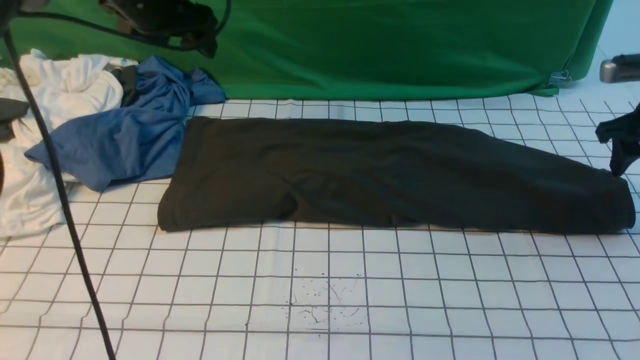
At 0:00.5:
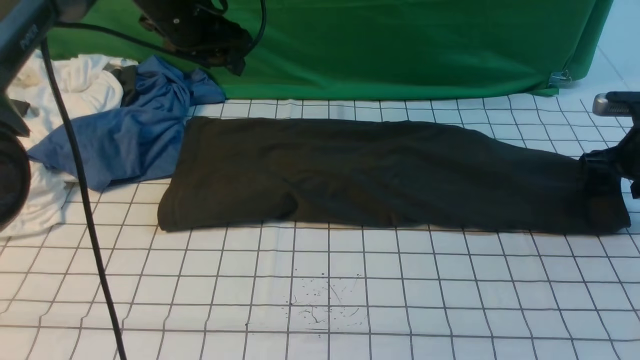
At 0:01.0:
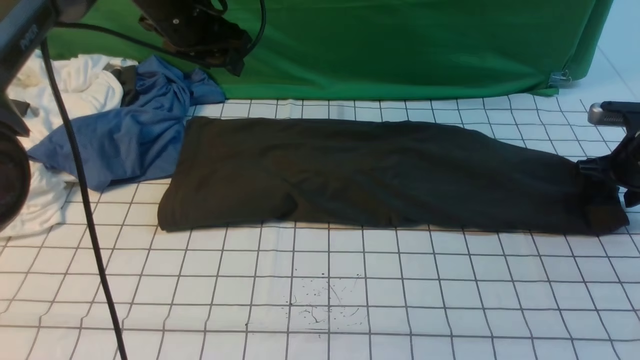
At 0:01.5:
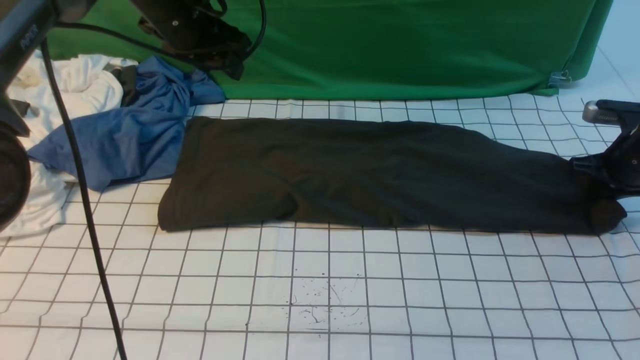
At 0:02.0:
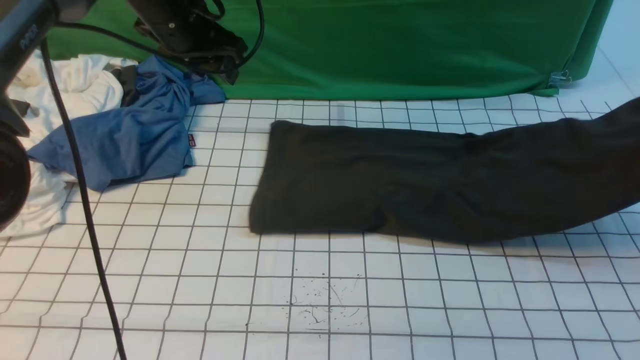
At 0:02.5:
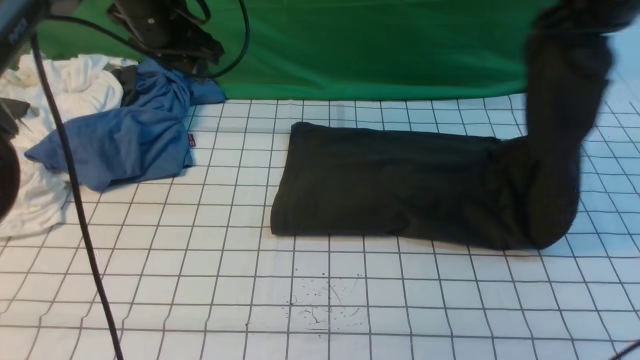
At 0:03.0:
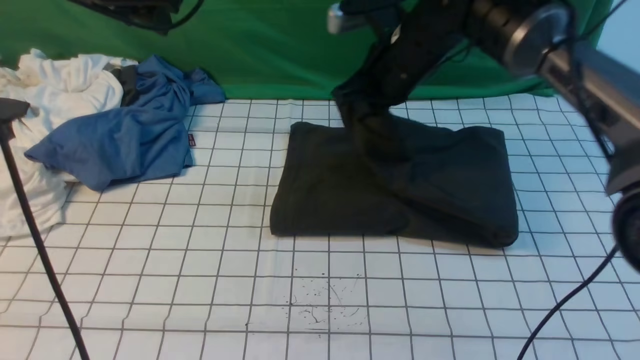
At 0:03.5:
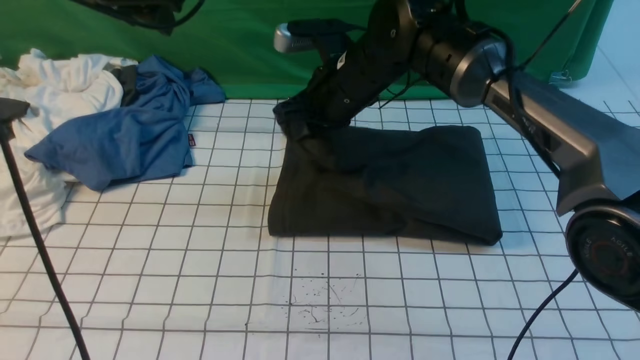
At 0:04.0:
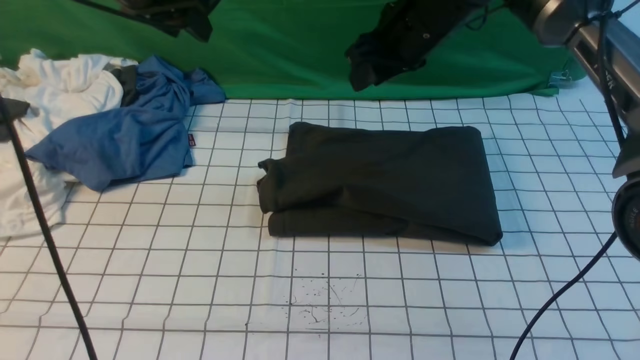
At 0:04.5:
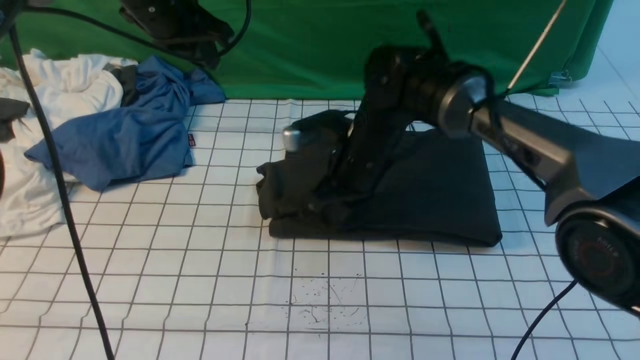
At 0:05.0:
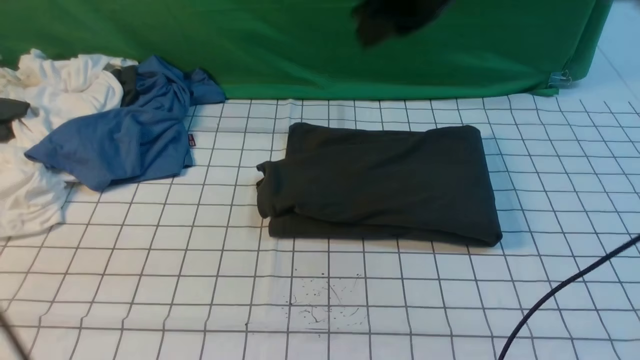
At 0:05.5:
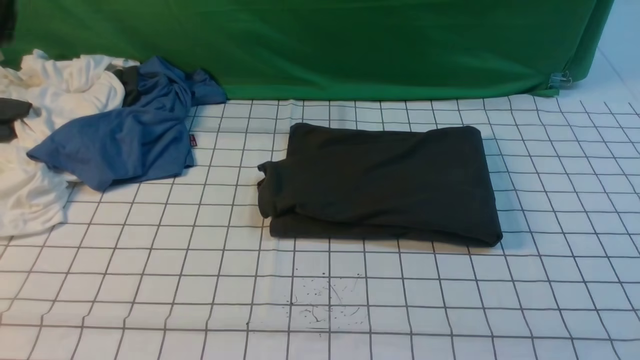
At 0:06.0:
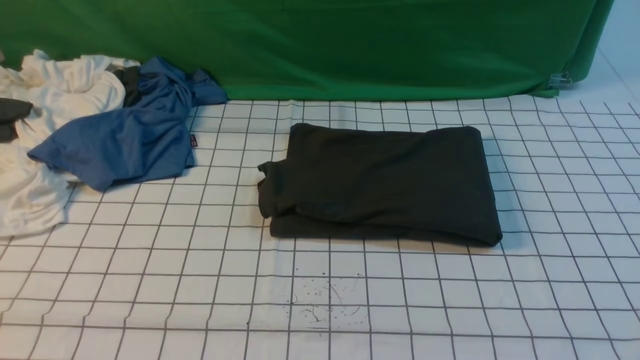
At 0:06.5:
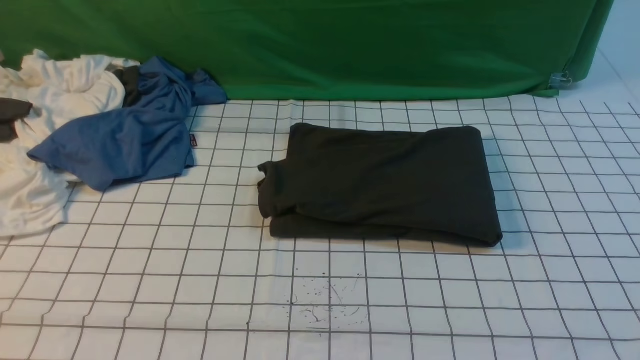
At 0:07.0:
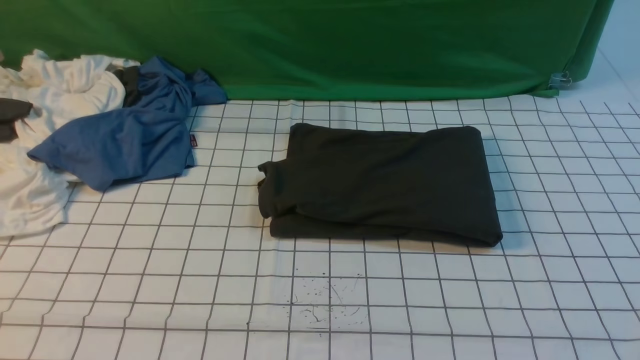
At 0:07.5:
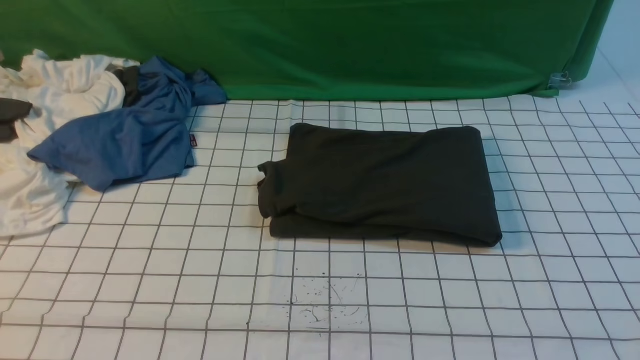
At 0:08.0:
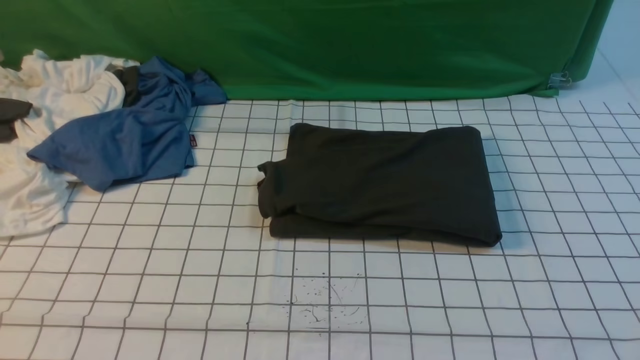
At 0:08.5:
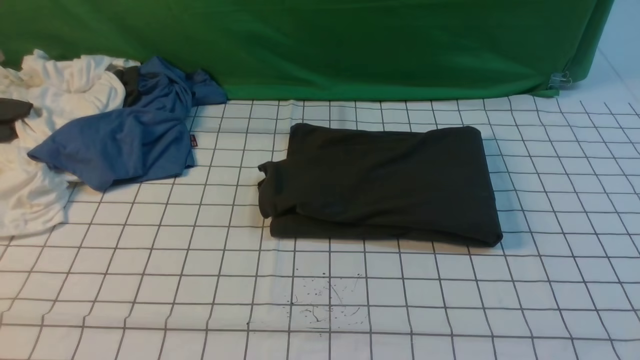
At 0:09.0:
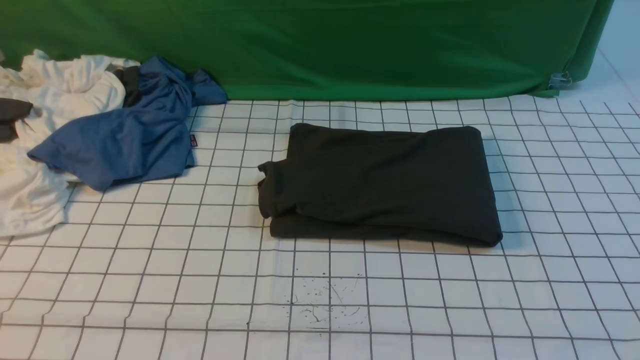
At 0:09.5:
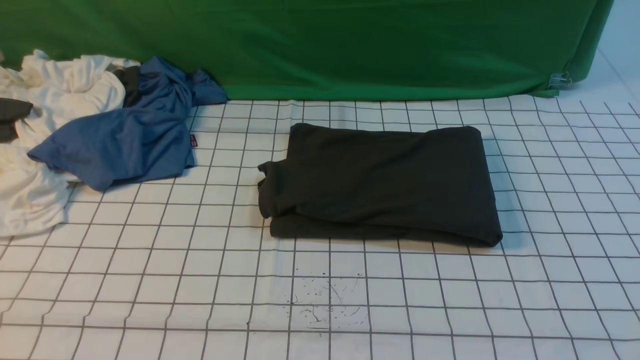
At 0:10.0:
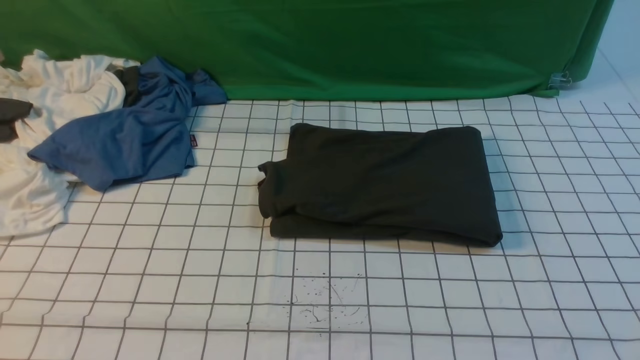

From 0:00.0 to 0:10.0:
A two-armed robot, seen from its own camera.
Step, from 0:00.0 to 0:01.5: use the right arm to clamp the right edge of the fabric.
Step, from 0:02.0 to 0:03.5: use the right arm to drag the right edge of the fabric to the left and folds it over the left edge.
From 0:00.0 to 0:02.0: The right gripper is displaced upward by roughly 10 cm, and closes.
From 0:02.0 to 0:04.0: The right gripper travels to the left by some 30 cm, and opens up.
From 0:04.0 to 0:06.0: The right gripper travels backward, to the right and upward by approximately 40 cm, and closes its fingers. The left gripper moves backward, approximately 40 cm, and closes.

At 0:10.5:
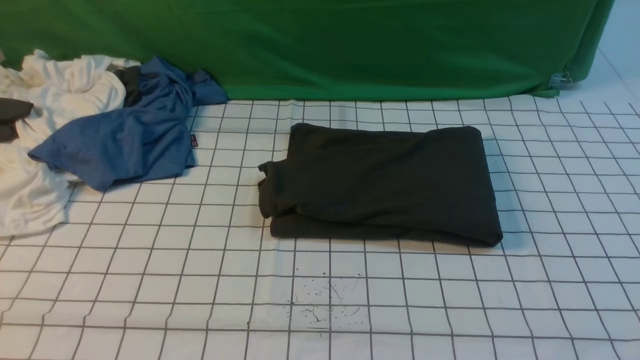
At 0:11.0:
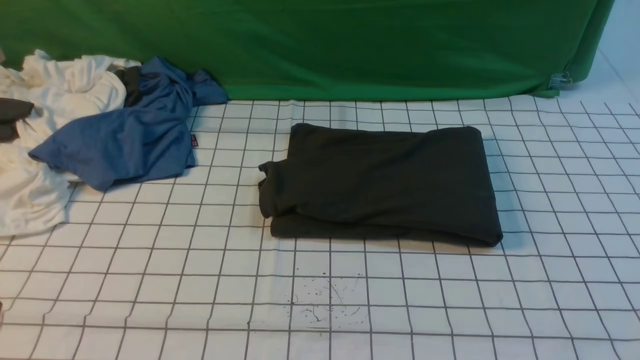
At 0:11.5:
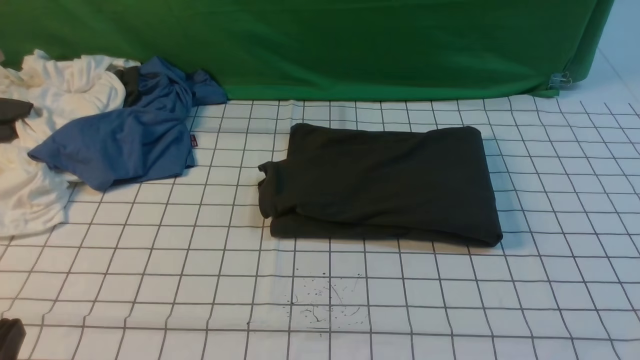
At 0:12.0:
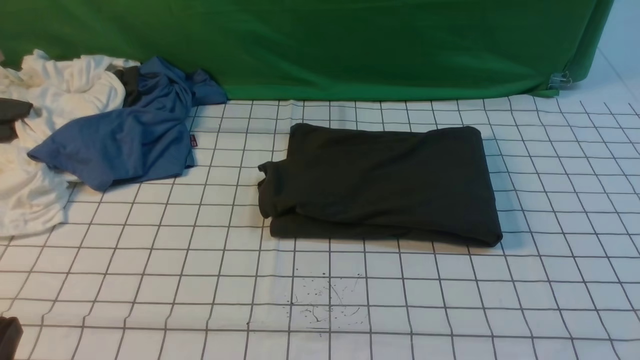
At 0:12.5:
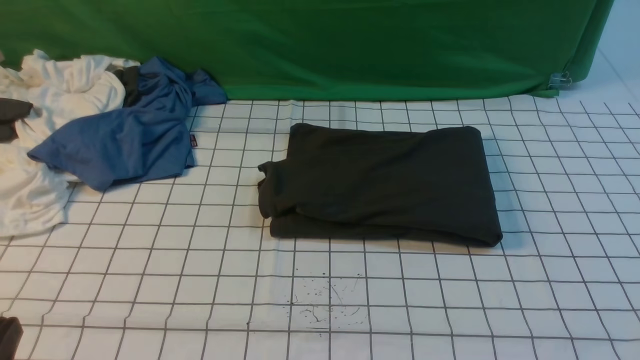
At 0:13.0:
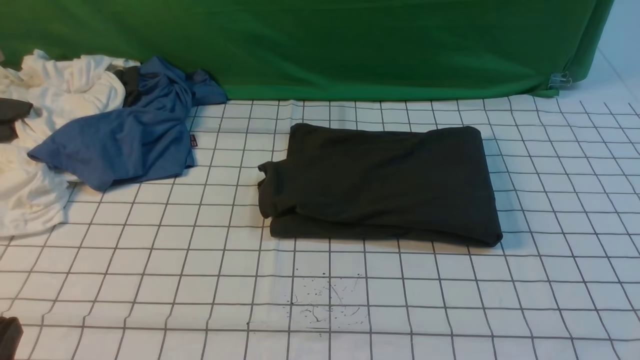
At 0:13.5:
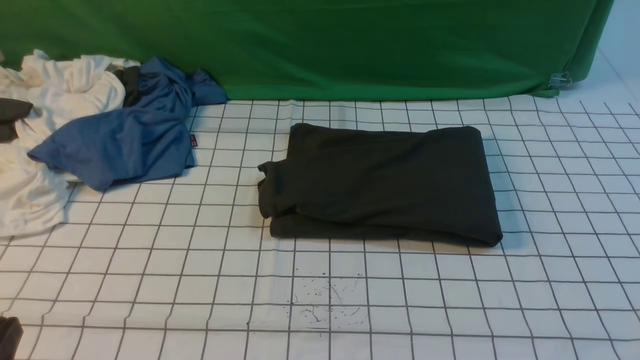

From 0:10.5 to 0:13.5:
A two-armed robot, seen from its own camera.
From 0:12.0 to 0:13.5: Neither gripper changes place.

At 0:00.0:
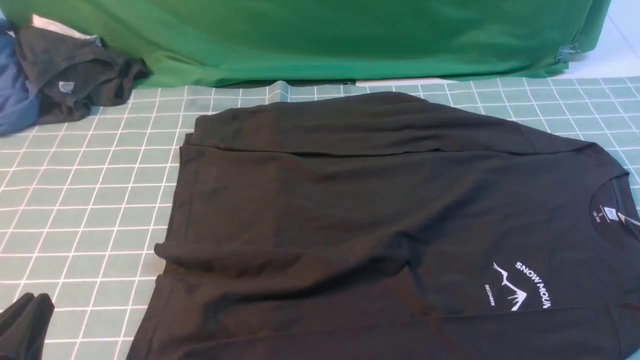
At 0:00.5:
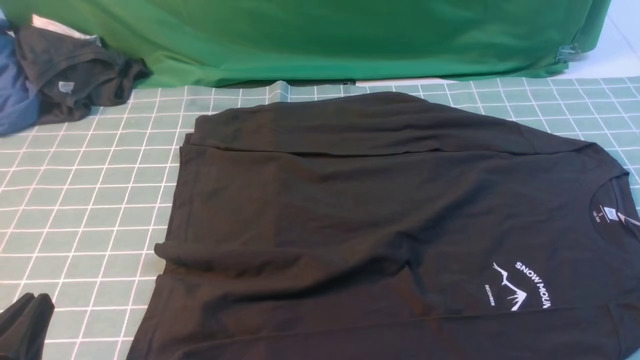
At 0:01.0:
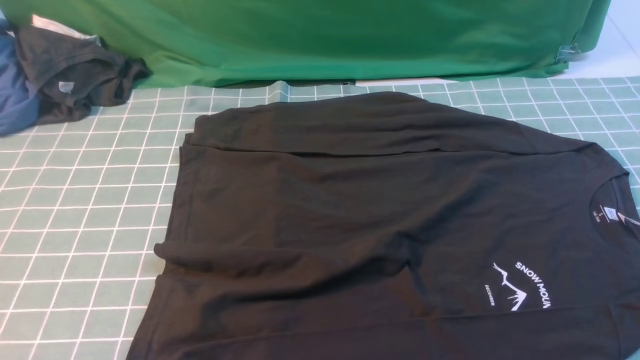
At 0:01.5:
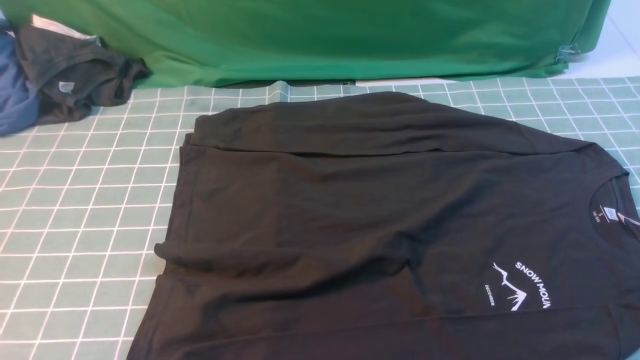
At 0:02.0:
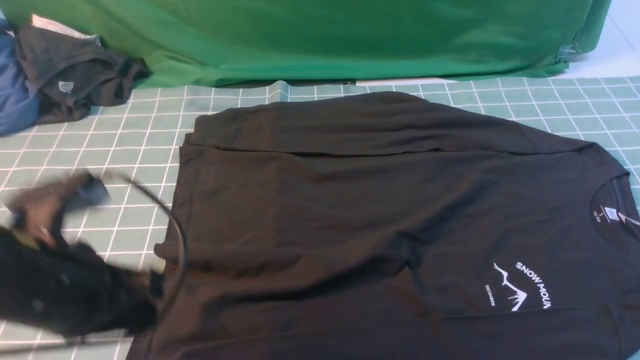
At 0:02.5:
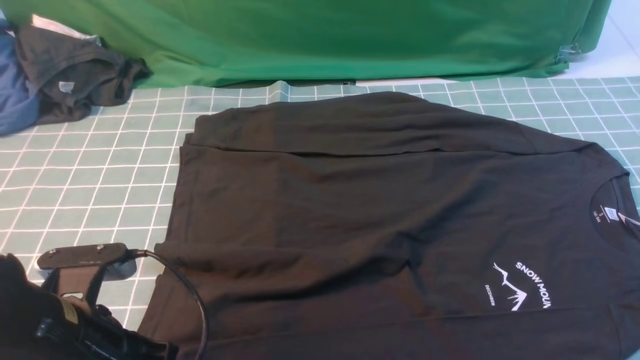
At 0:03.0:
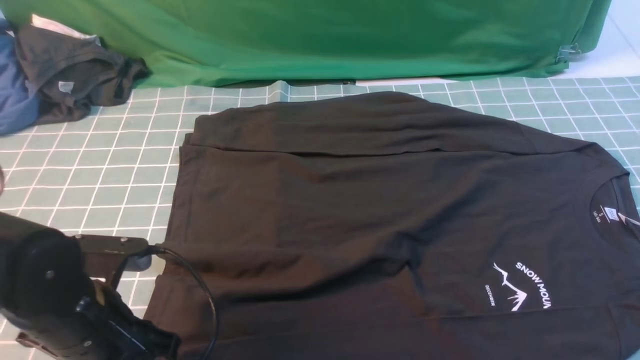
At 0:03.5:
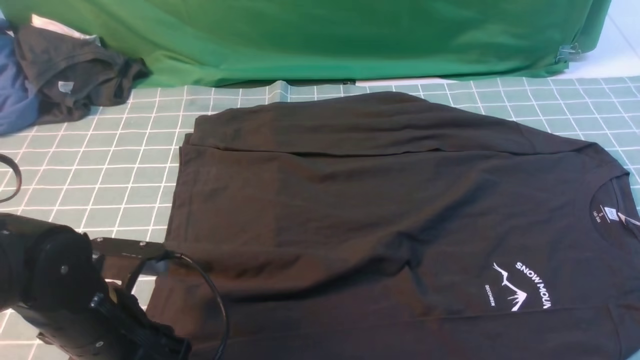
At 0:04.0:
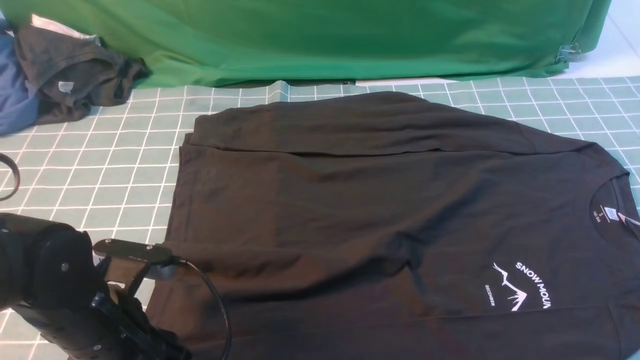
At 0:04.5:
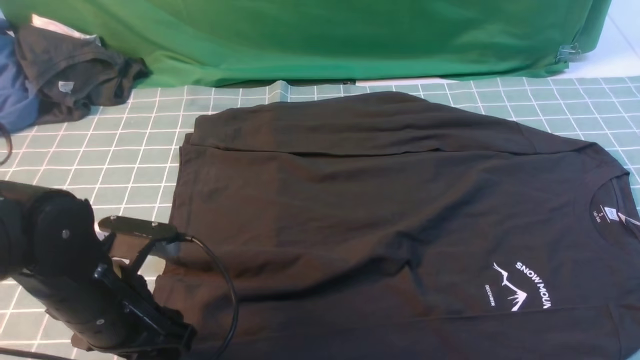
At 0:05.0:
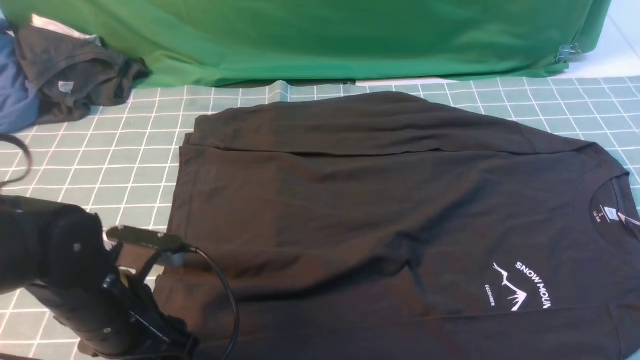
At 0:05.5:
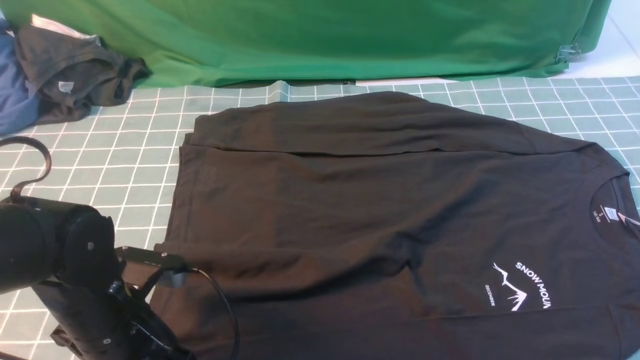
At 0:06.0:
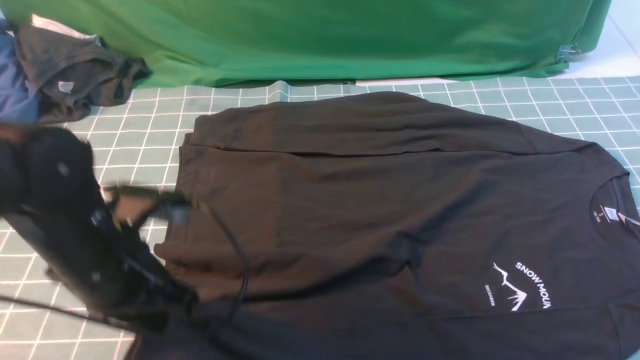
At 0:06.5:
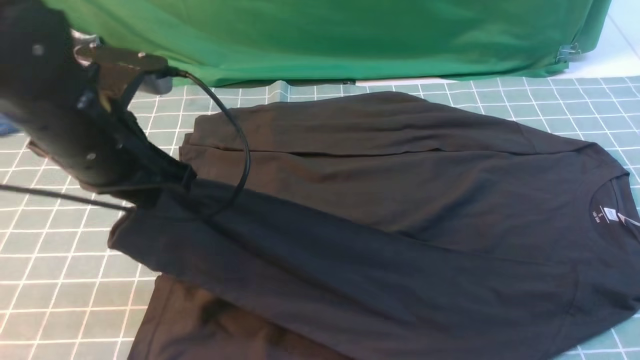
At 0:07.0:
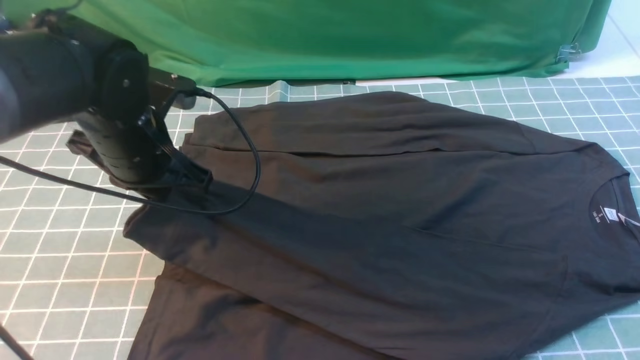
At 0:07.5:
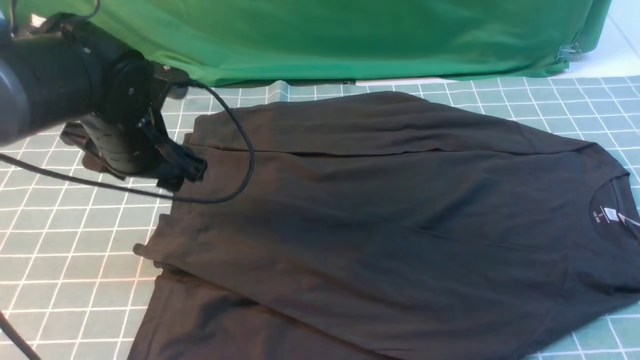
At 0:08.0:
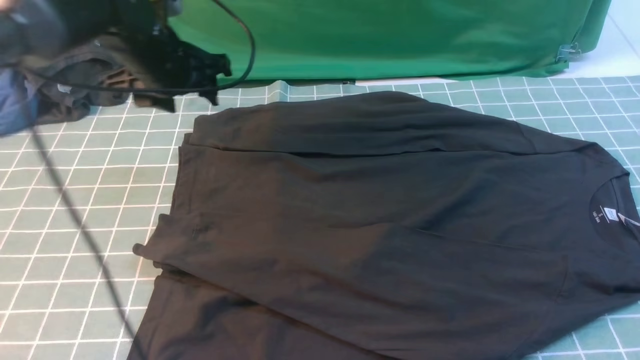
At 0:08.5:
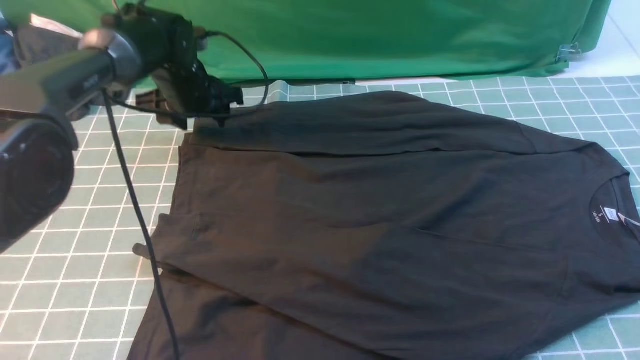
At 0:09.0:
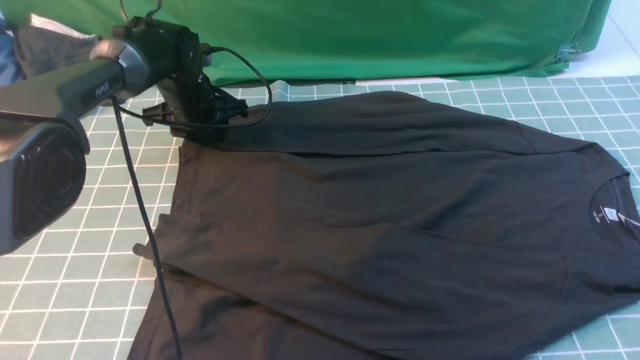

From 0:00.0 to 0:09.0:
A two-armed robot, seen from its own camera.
Step, from 0:00.0 to 0:05.5: use the left arm to clamp the cuff closest to it.
Step, from 0:06.5 to 0:07.0: use the left arm to drag and place the cuff at the centered position on the left edge of the fabric.
From 0:00.0 to 0:02.0: The left gripper is displaced forward and upward by roughly 10 cm.
From 0:02.0 to 0:04.5: The left gripper heads downward, covering roughly 5 cm, and opens up.
From 0:04.5 to 0:07.0: The left gripper travels forward and upward by about 15 cm, and closes up.
From 0:07.0 to 0:09.0: The left gripper travels forward and downward by some 20 cm, and opens and closes again.
